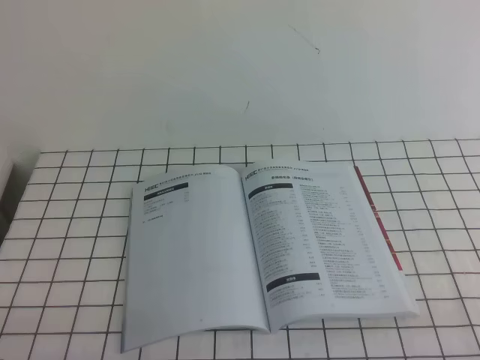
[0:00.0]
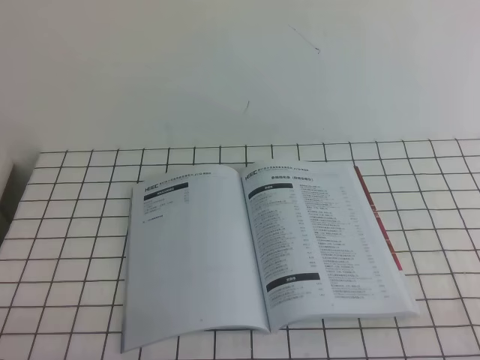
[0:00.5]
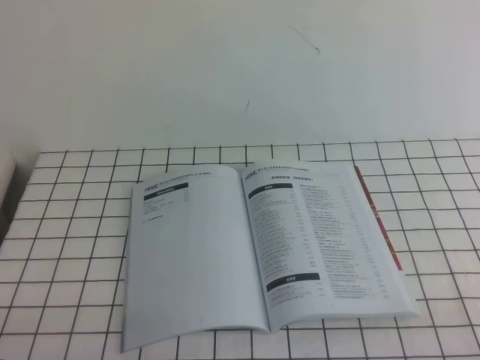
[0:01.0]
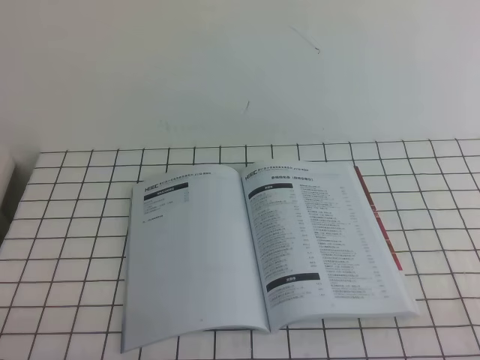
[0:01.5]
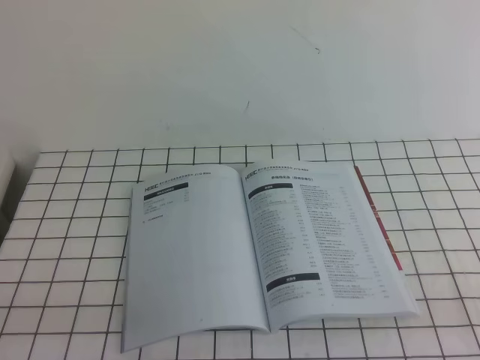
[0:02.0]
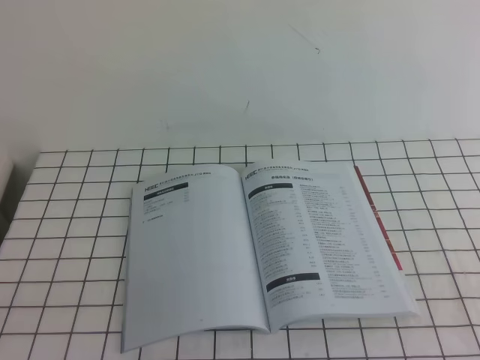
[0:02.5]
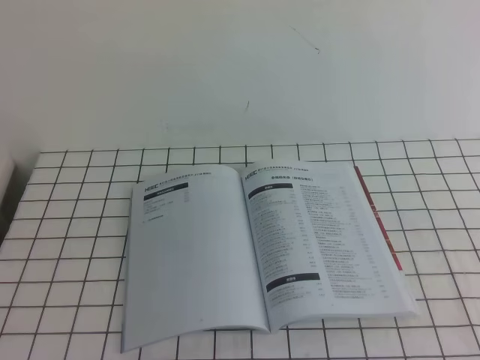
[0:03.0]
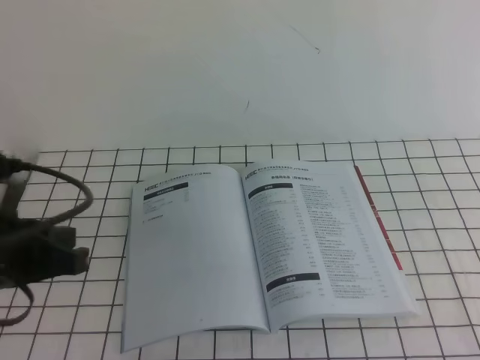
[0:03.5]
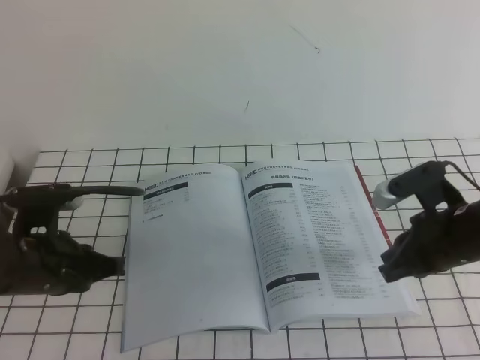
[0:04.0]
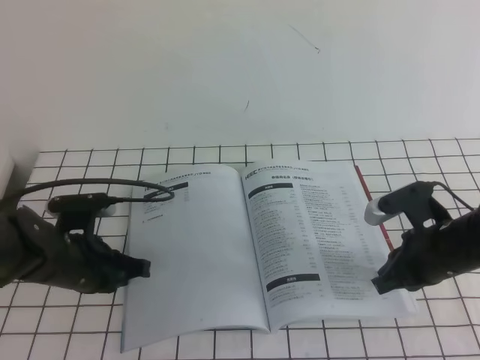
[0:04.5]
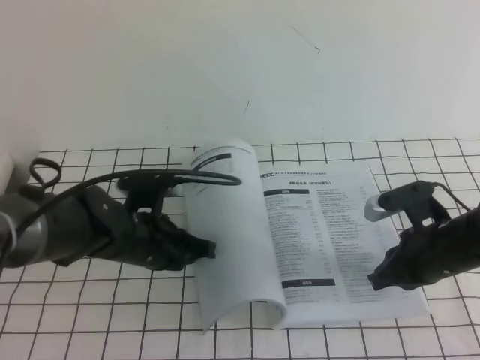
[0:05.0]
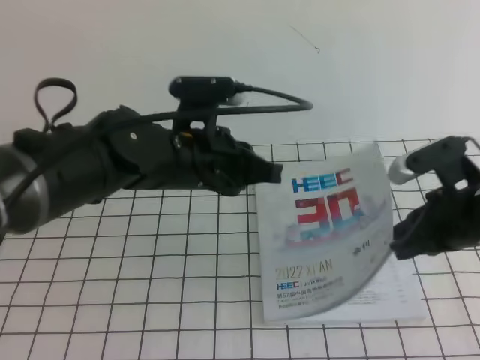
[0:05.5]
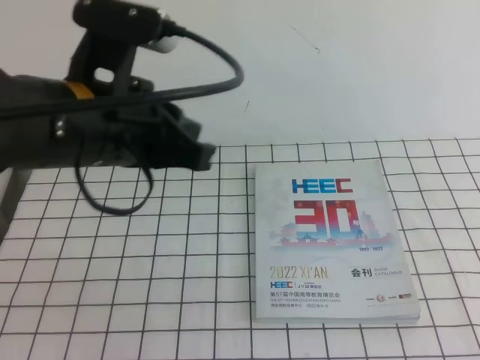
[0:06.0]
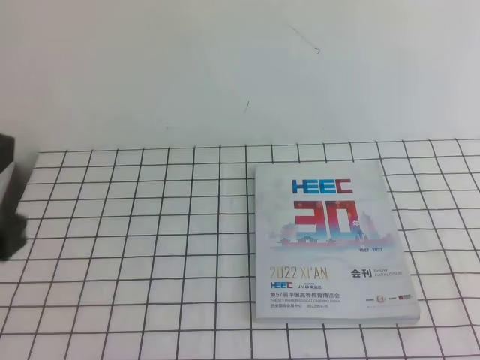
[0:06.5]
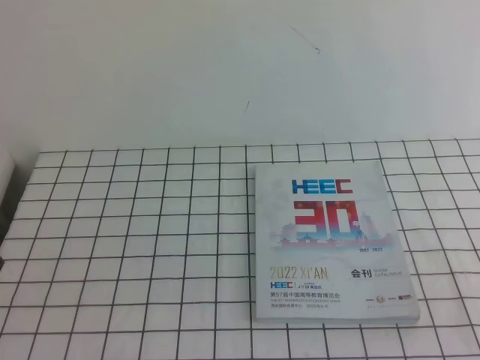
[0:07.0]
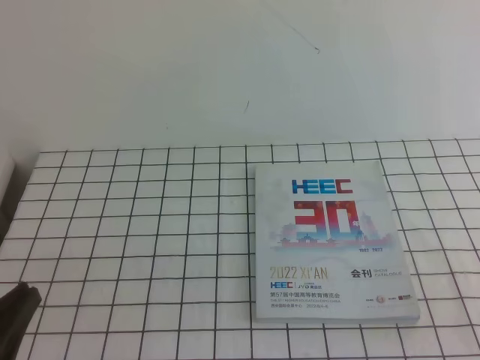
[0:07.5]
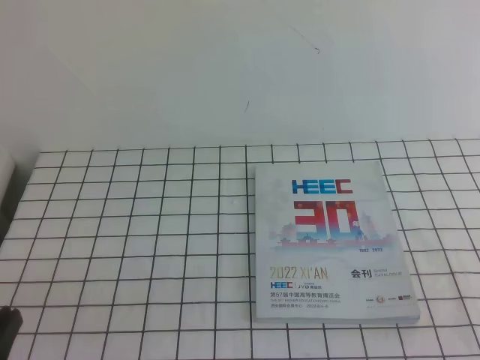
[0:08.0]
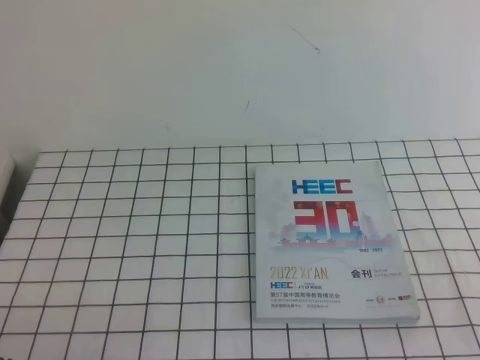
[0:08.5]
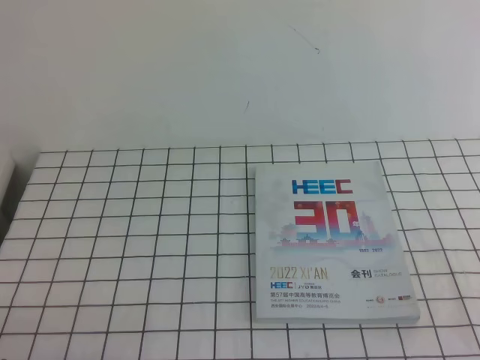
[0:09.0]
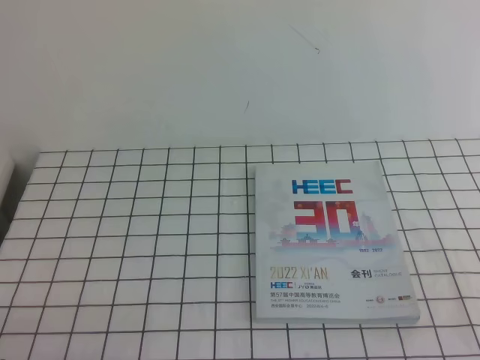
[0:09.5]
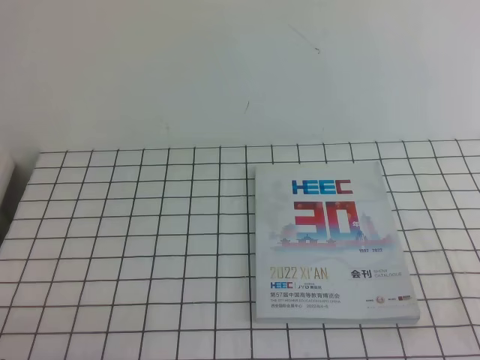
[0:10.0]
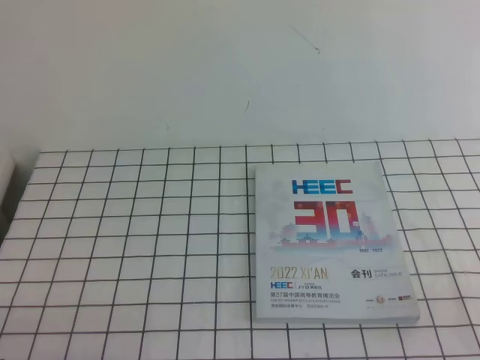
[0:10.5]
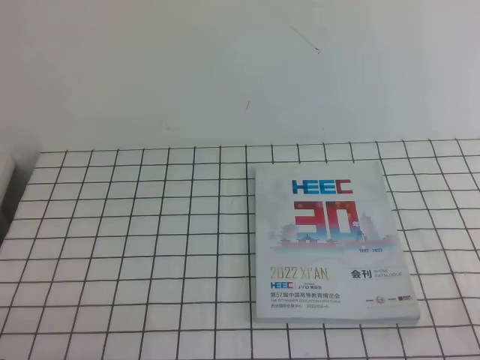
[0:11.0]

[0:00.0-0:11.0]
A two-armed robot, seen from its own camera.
Task of the whole recording: on the white tablecloth, hold the book with one hand and close it with the other.
Step, 0:00.0 to 0:11.0: Close the open book.
0:02.0 to 0:03.5: The left gripper travels forward and upward by roughly 15 cm.
0:03.5 to 0:05.5: The right gripper heads downward, forward and to the left, covering approximately 15 cm, while the left gripper is displaced to the right and forward by roughly 20 cm.
0:05.5 to 0:07.5: The right gripper travels backward by about 25 cm; the left gripper is displaced backward and to the left by approximately 30 cm.
0:07.5 to 0:09.0: The left gripper is displaced downward by approximately 10 cm.
